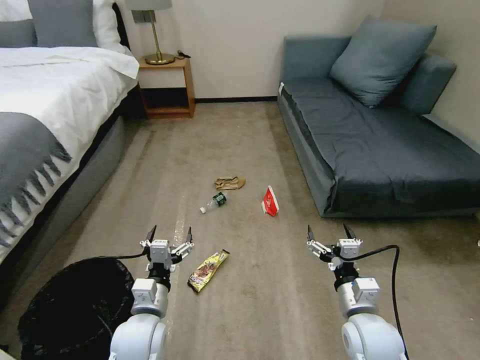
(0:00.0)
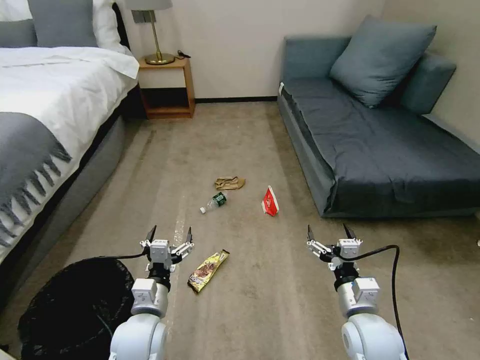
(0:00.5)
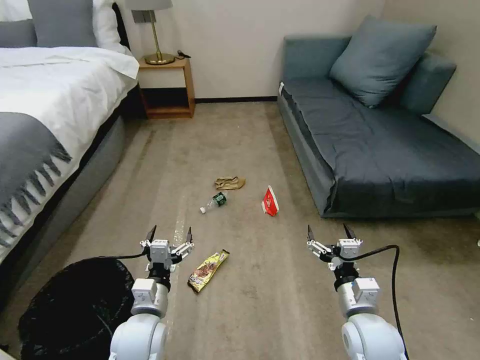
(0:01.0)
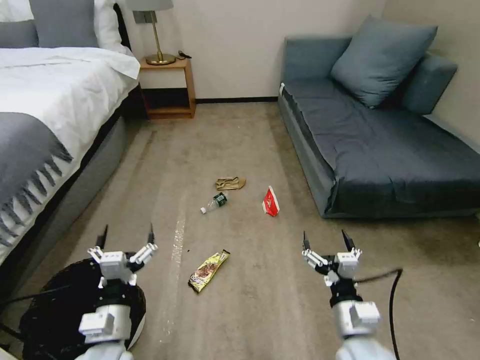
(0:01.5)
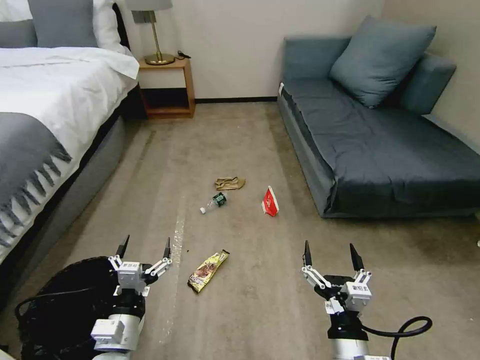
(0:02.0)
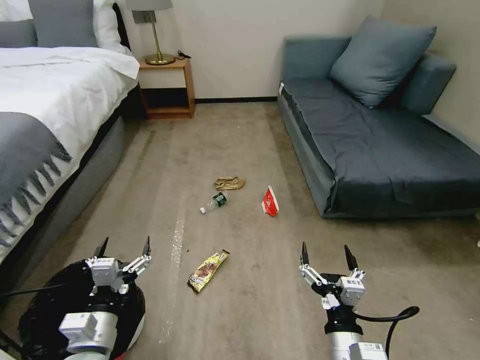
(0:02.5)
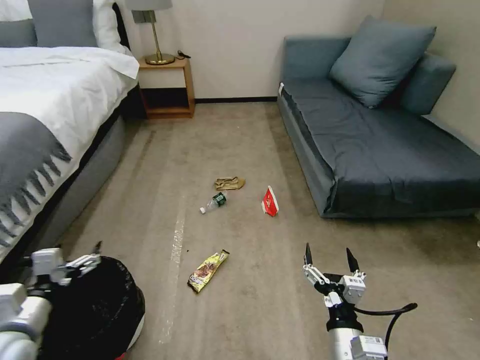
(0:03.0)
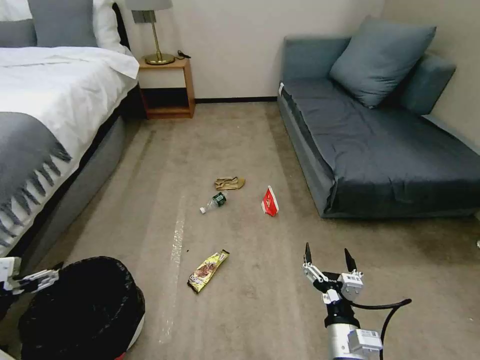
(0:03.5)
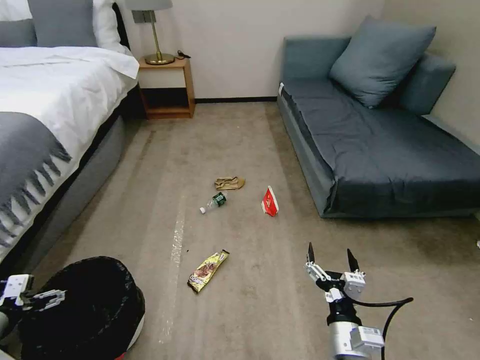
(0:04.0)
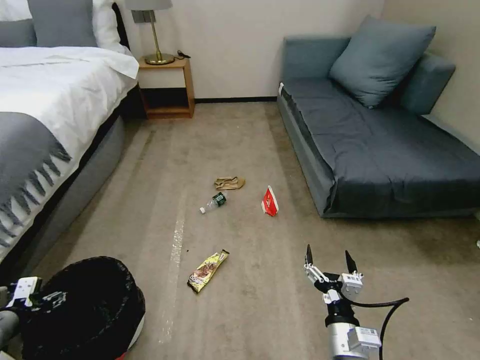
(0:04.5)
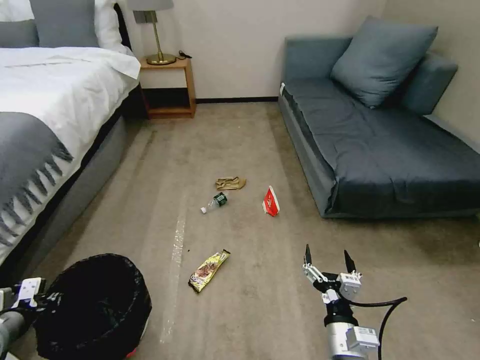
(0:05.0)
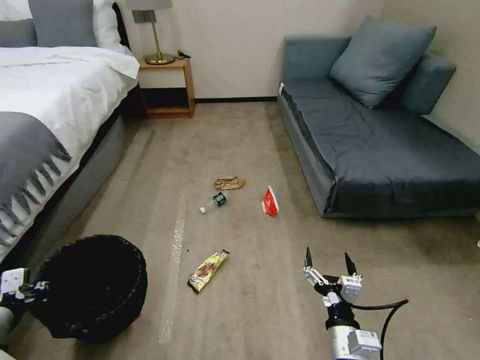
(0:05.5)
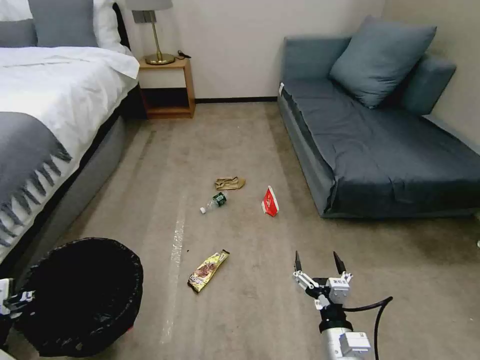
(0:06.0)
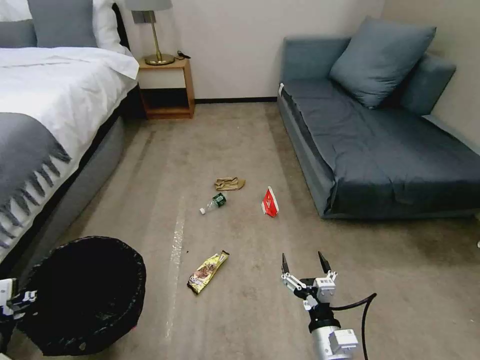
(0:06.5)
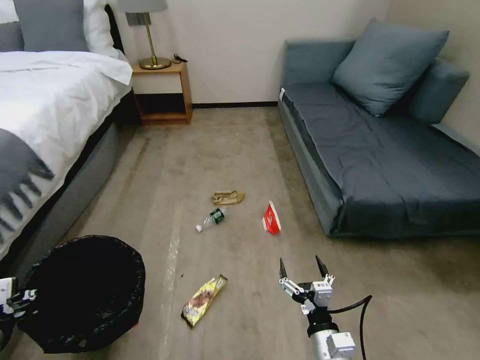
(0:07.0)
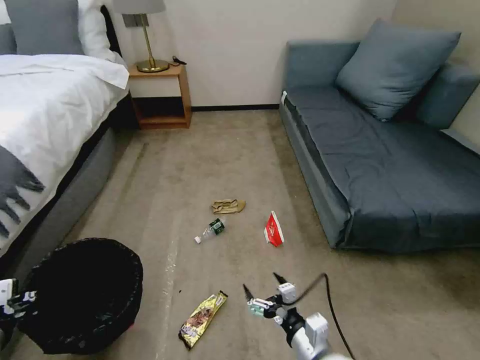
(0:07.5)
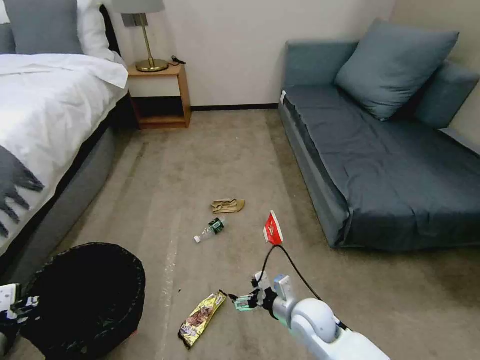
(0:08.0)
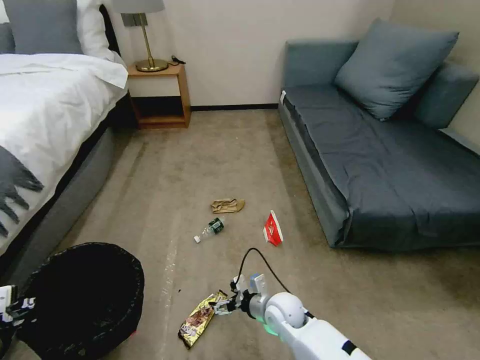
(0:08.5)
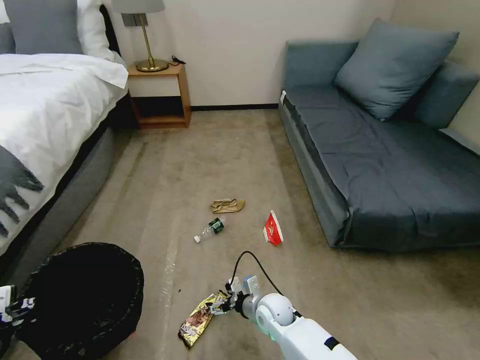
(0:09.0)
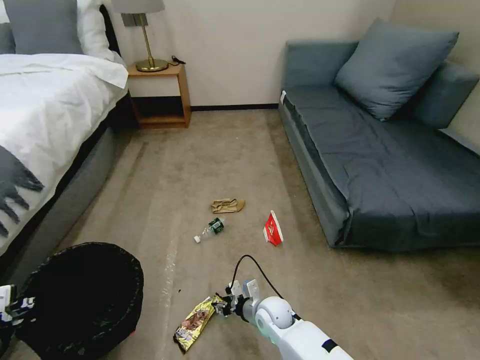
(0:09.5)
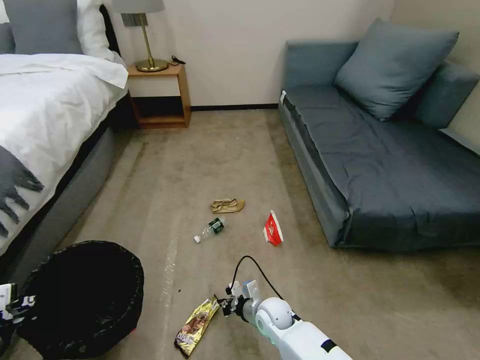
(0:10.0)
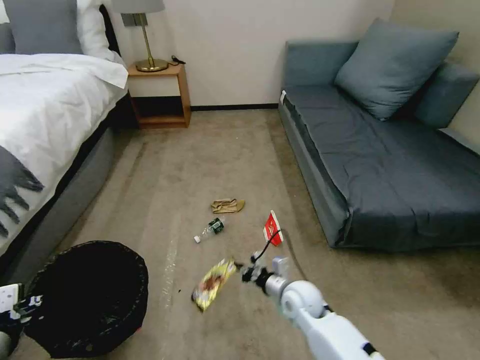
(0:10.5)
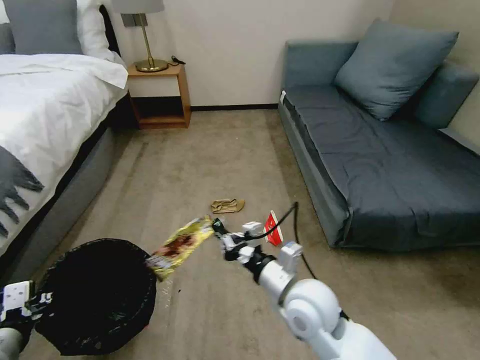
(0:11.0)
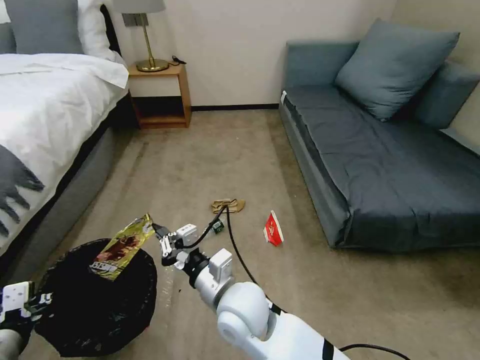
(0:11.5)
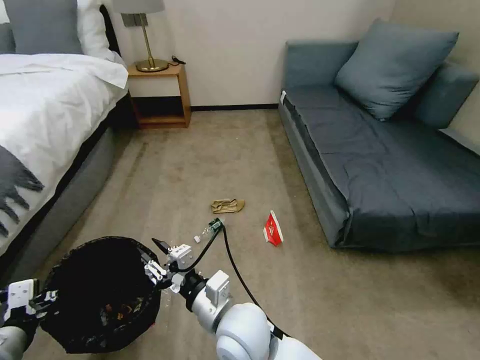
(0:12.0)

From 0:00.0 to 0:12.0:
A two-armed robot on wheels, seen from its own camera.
Task of the whole recording: Pick up the trash bin, then pick up the garbage on the floor and place it into the trash bin.
From 0:02.0 to 0:04.0: The right gripper changes place by about 5 cm, while the left gripper heads to the left, covering some 25 cm.
From 0:04.0 to 0:06.0: The left gripper is displaced to the right by some 5 cm, and closes up.
From 0:06.0 to 0:08.0: The right gripper shifts some 15 cm forward.
From 0:08.0 to 0:10.0: The right gripper is displaced downward and to the left by approximately 15 cm, and closes its fingers.
From 0:10.0 to 0:12.0: The right gripper travels upward and to the left by about 25 cm, and opens its fingers.

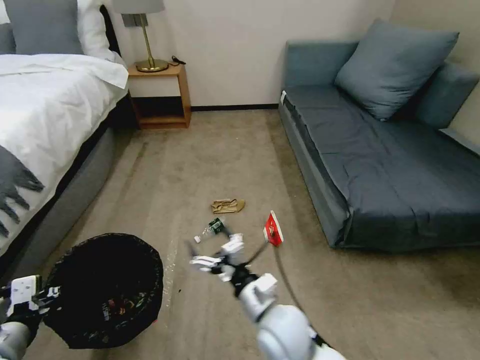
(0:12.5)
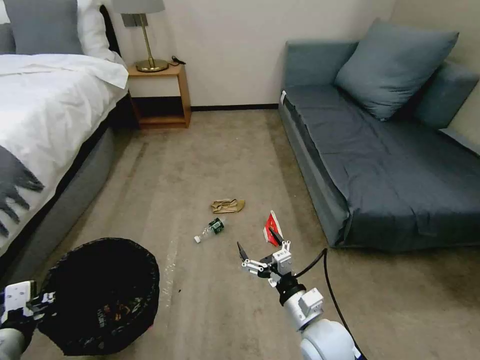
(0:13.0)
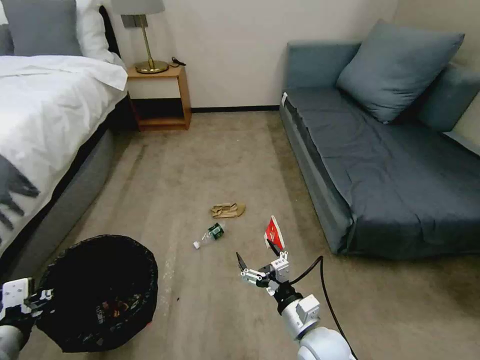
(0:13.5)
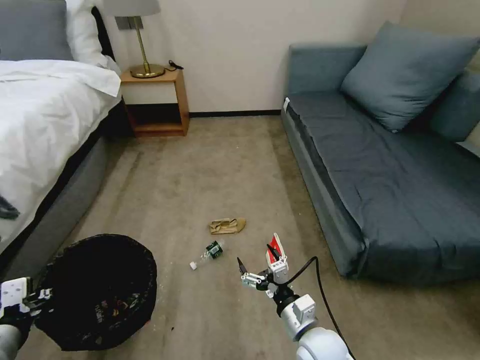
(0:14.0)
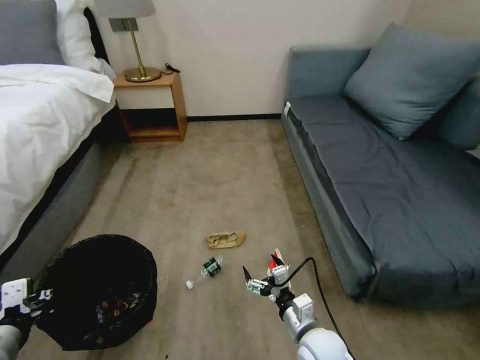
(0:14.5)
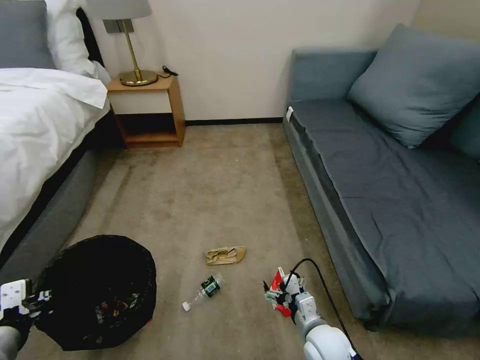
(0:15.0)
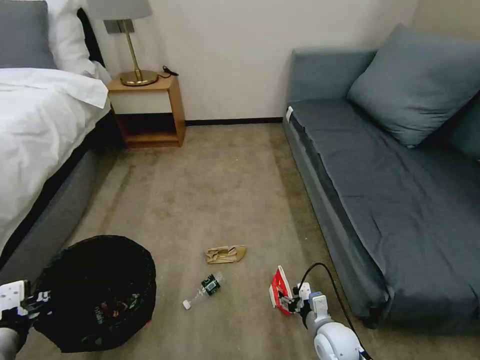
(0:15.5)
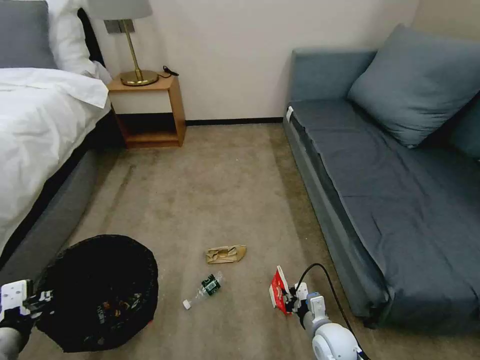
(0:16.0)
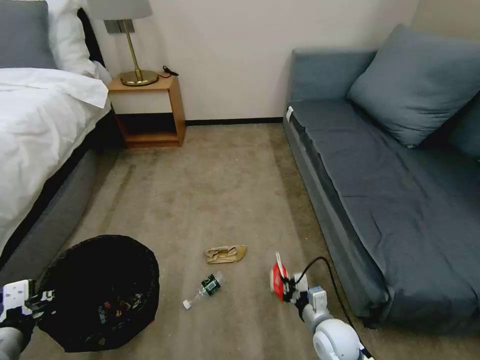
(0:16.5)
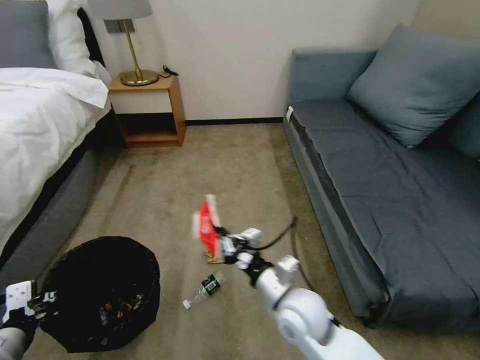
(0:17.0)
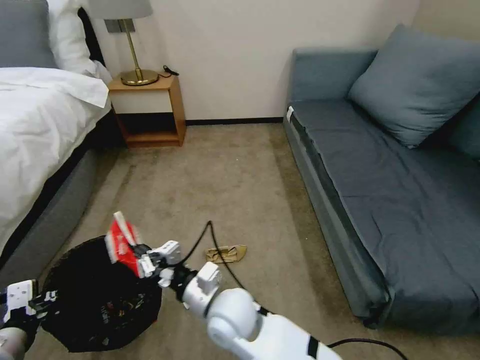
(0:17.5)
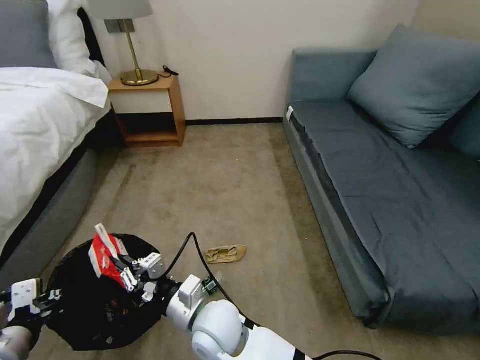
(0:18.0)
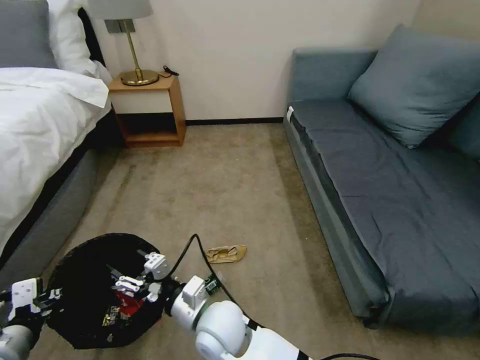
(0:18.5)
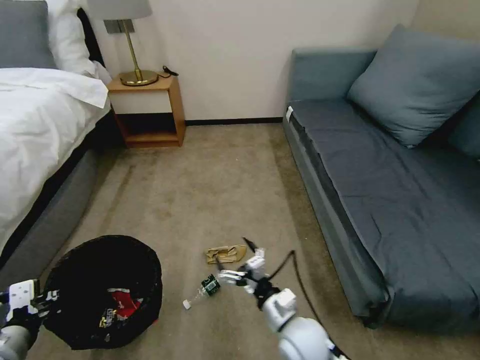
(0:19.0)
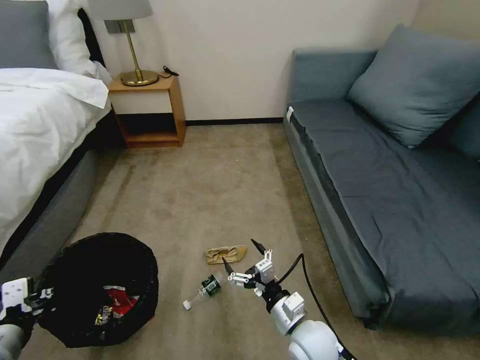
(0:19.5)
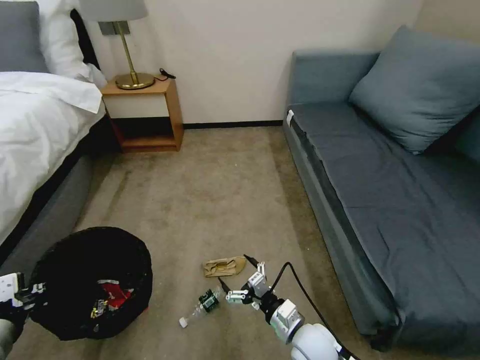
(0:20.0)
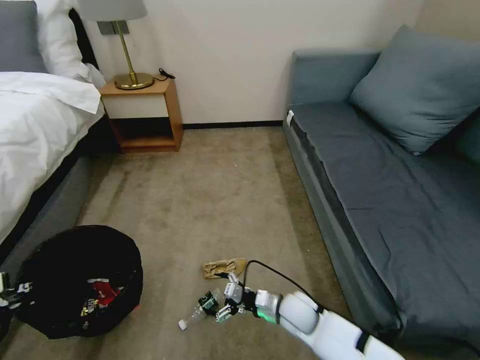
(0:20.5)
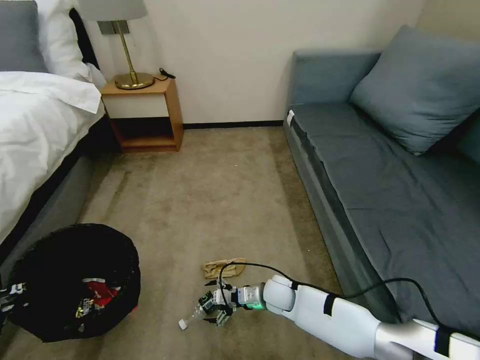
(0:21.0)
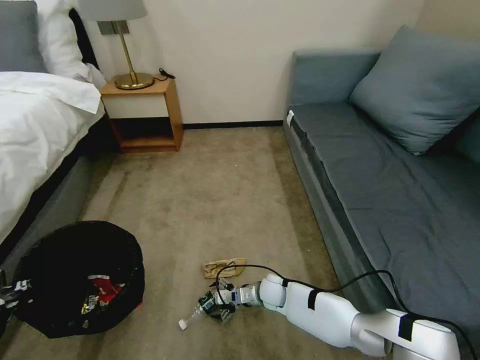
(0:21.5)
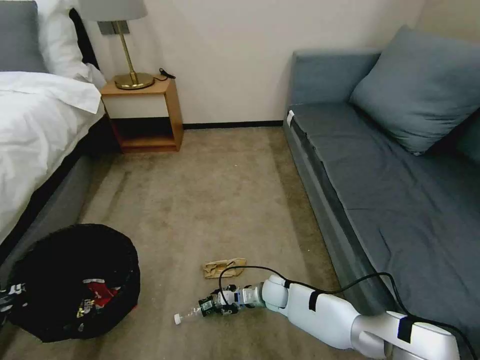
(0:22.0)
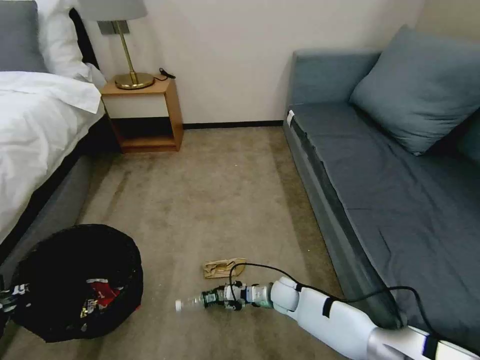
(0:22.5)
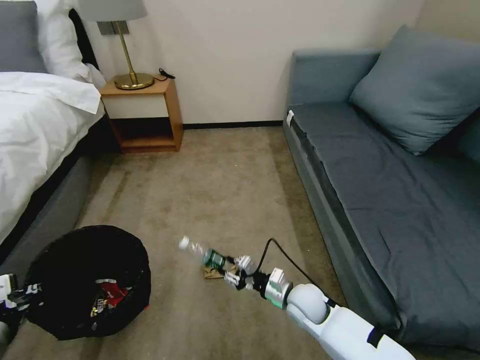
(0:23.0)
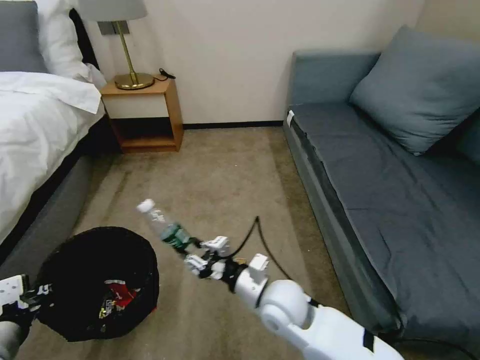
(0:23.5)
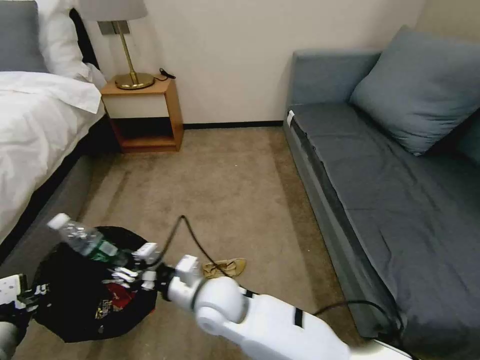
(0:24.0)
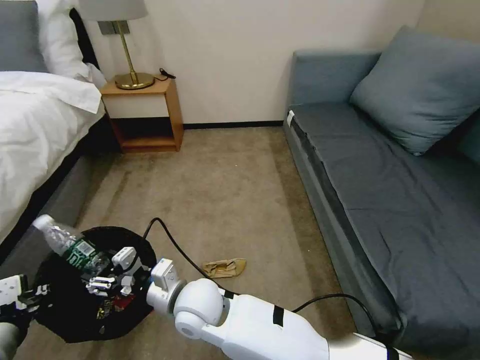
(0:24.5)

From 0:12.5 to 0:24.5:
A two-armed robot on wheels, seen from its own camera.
Task of the whole recording: Pick up the trash bin, then pick up the garbage on the floor and place it into the trash bin.
From 0:12.5 to 0:14.5: The right gripper moves to the right and downward, approximately 10 cm.
From 0:14.5 to 0:16.5: The right gripper heads downward and to the right, covering some 10 cm, and closes up.
From 0:16.5 to 0:18.5: The right gripper moves to the left and upward, approximately 30 cm, and opens its fingers.
From 0:18.5 to 0:20.5: The right gripper goes roughly 25 cm to the right and downward, and opens up, while the left gripper moves to the left, some 5 cm.
From 0:20.5 to 0:22.5: The right gripper is displaced downward and forward by some 10 cm, and closes up.
From 0:22.5 to 0:24.5: The right gripper travels upward, to the left and backward by approximately 35 cm.

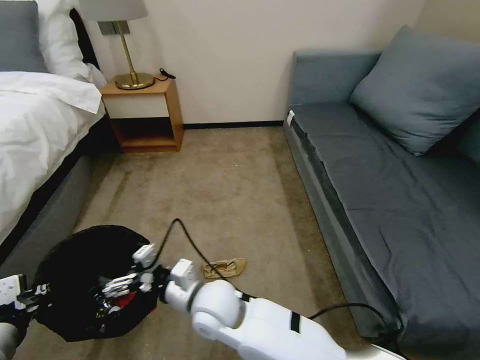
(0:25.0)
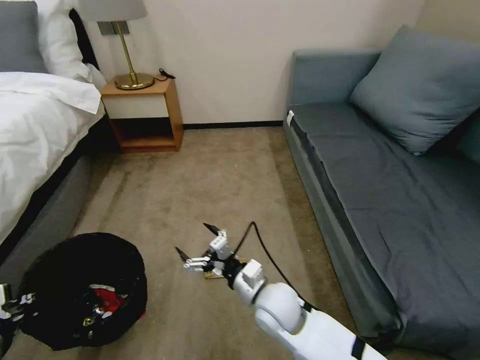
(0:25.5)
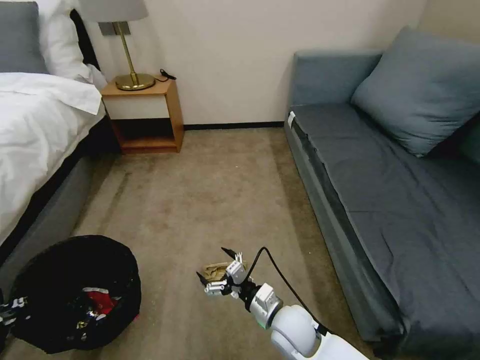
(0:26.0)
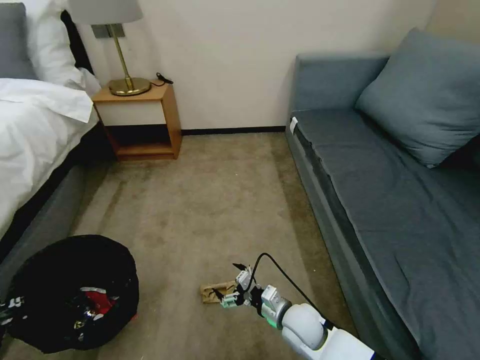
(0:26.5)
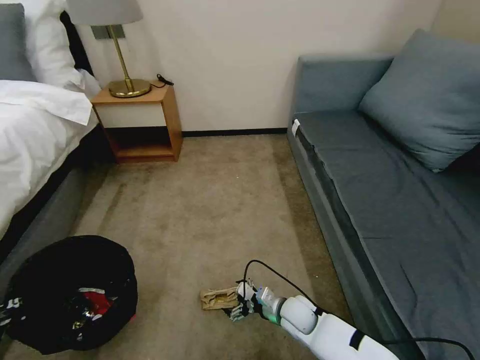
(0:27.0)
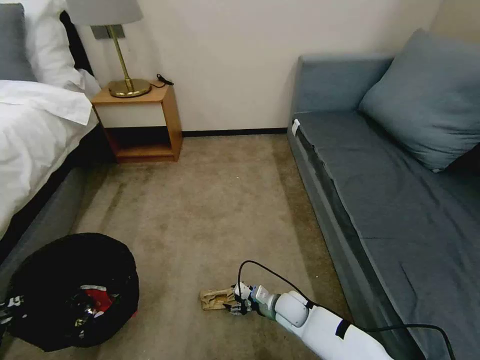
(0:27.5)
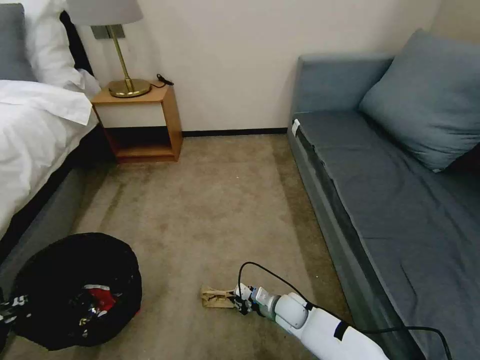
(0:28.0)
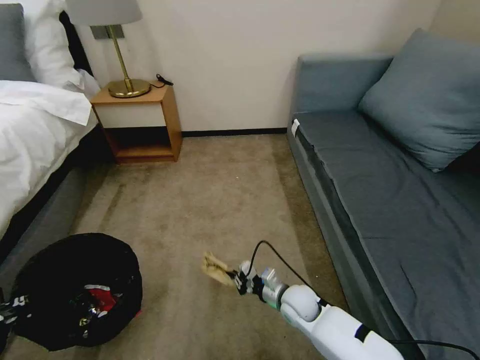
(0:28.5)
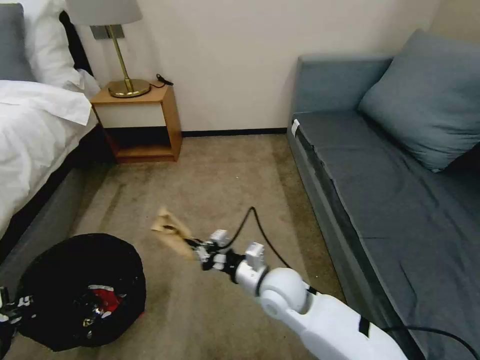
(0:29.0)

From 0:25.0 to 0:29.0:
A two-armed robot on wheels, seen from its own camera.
Task of the whole recording: Pick up the trash bin, then pick up the garbage on the floor and place it into the trash bin.
From 0:25.0 to 0:27.0: The right gripper goes some 30 cm to the right and downward.
From 0:27.0 to 0:29.0: The right gripper heads upward and to the left, covering some 20 cm, and closes its fingers.
